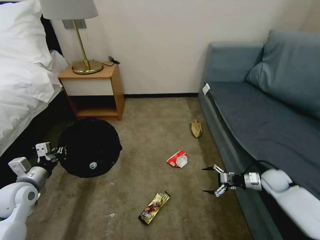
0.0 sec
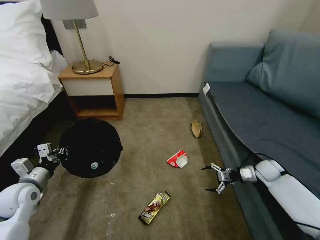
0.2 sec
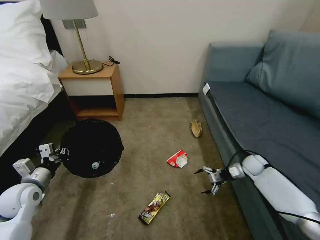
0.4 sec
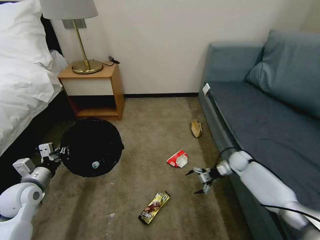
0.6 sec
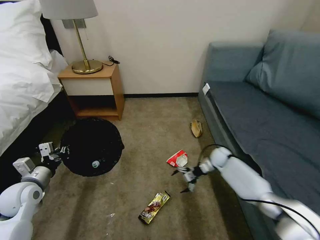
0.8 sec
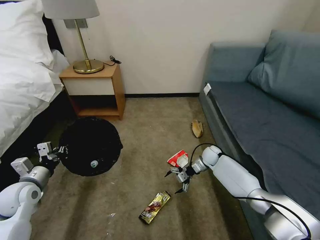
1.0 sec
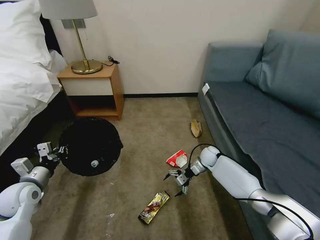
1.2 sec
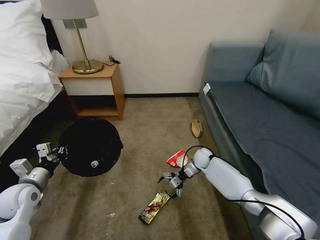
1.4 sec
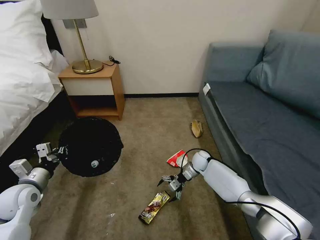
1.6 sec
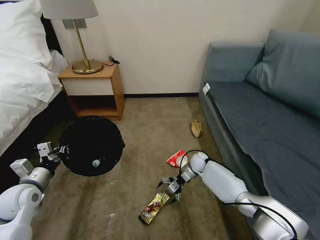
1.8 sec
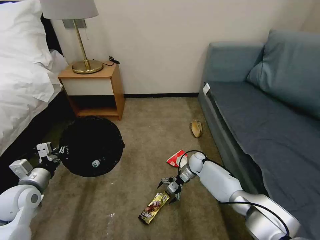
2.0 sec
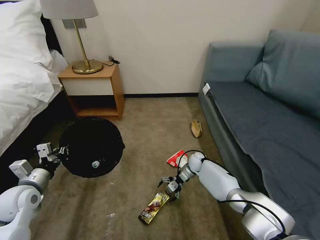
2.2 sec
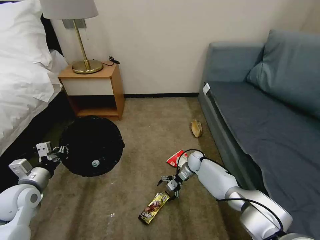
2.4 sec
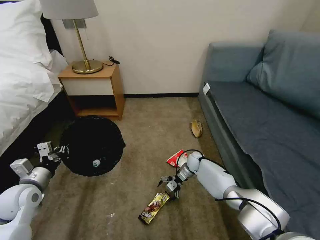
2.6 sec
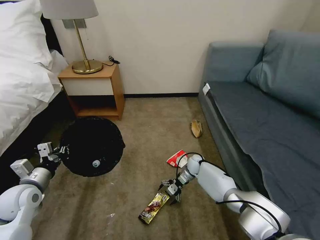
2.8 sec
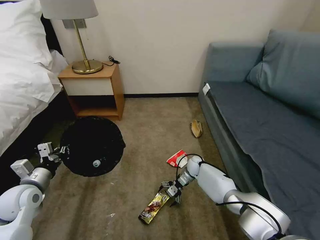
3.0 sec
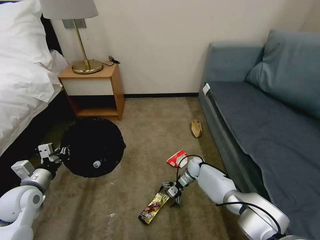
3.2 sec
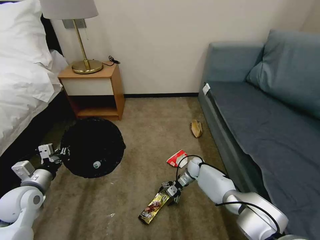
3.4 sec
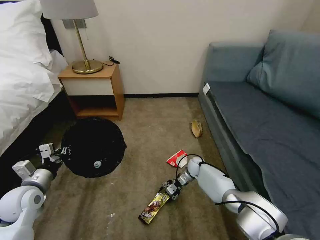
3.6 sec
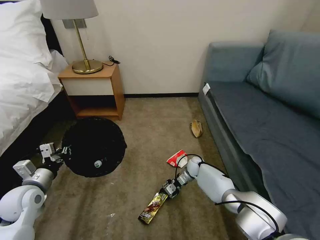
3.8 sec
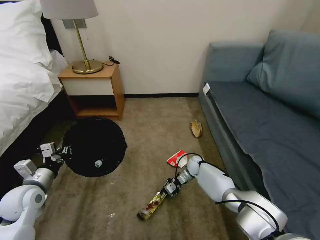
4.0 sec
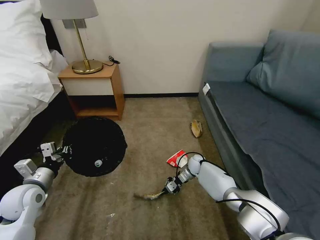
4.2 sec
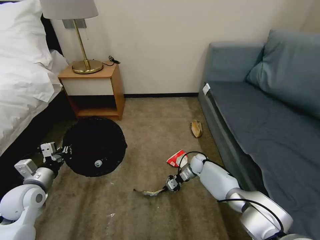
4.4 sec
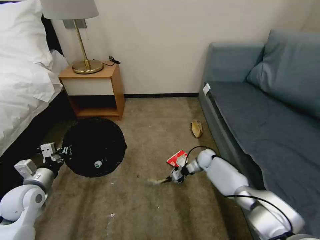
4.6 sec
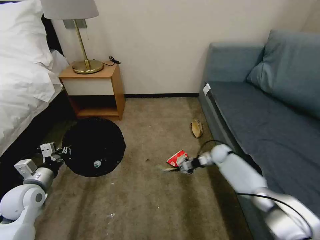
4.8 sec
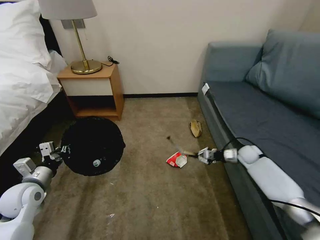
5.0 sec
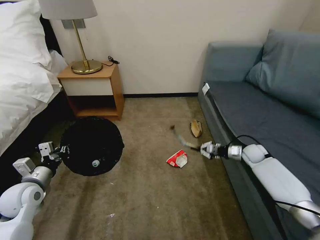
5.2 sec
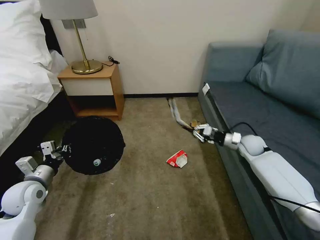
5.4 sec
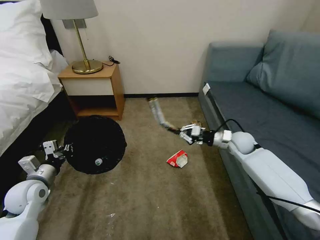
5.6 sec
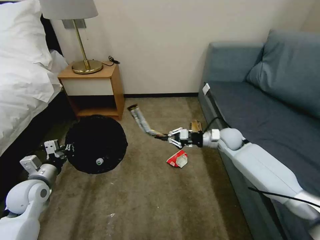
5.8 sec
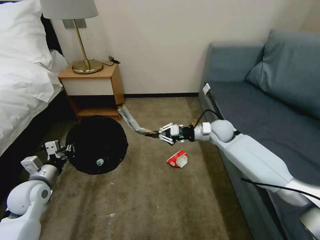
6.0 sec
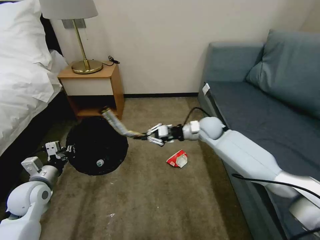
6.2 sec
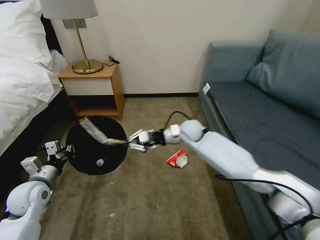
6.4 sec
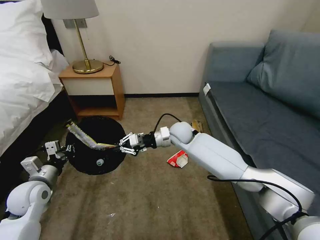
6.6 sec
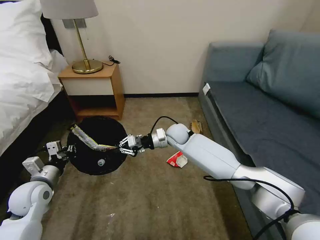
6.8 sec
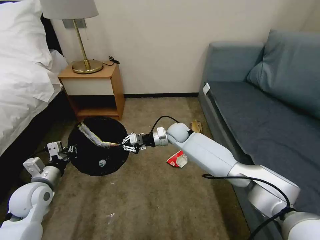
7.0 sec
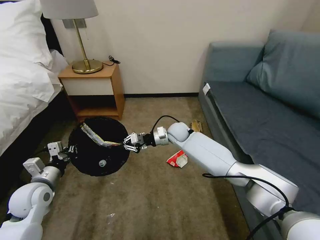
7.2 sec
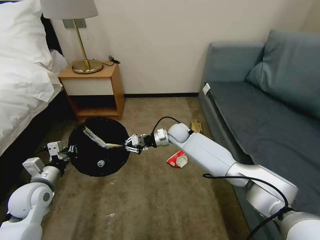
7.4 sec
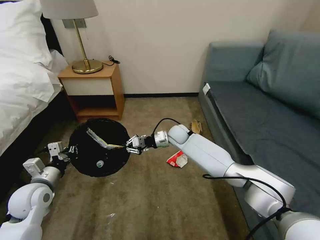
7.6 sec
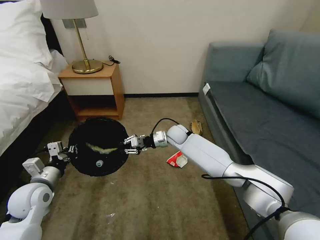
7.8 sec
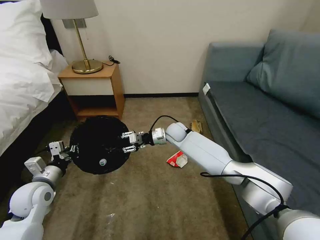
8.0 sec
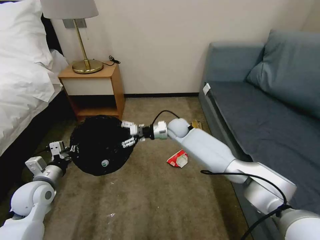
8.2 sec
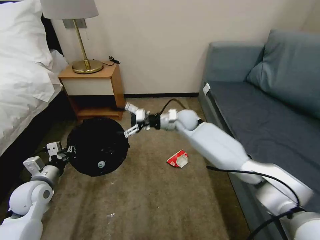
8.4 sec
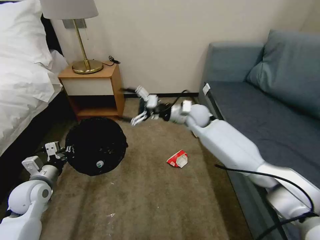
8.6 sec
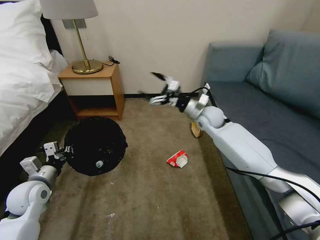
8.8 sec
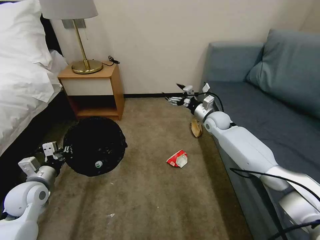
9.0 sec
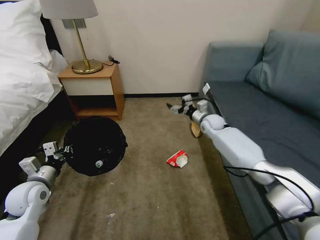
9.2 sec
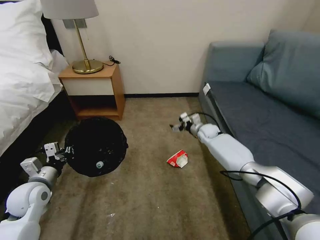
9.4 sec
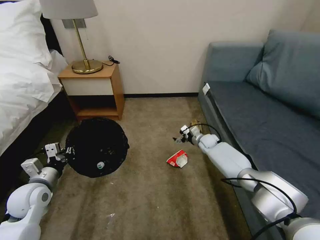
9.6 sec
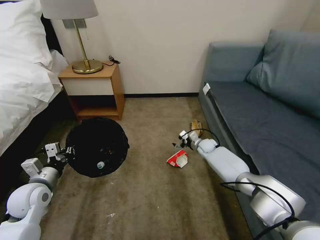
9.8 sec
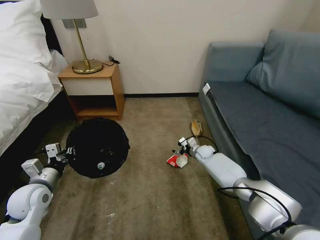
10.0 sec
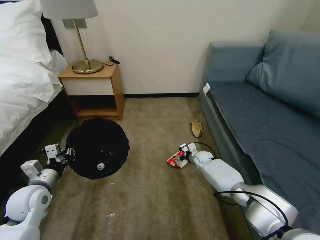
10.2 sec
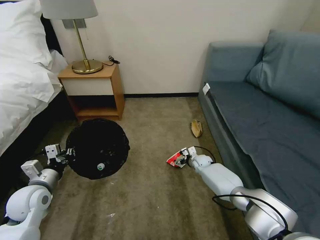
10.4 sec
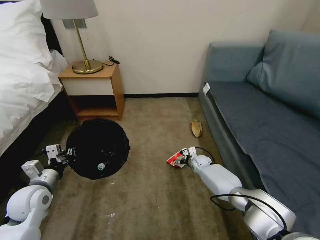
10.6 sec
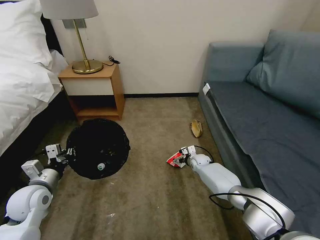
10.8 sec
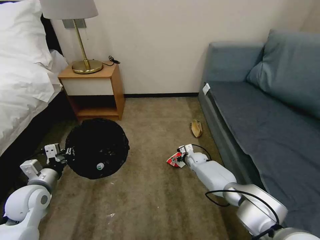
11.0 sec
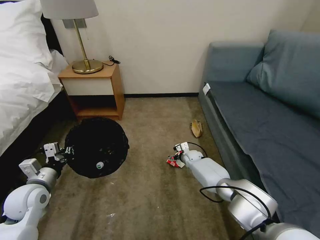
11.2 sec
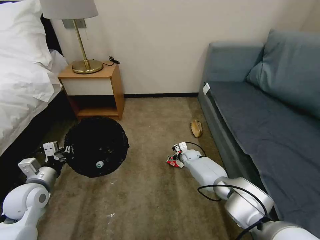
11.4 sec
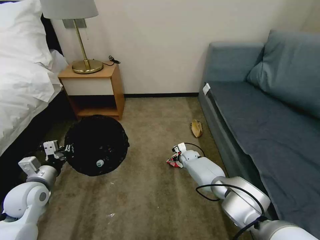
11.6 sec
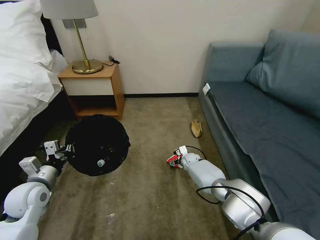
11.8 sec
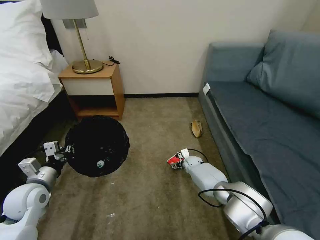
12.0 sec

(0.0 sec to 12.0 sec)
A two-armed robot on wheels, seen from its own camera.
Task of the whole recording: Pick up the trash bin, then pick up the garbage on the floor and place it into the trash bin.
0.0 sec - 1.6 sec: The right gripper moves to the left and forward, roughly 30 cm.
1.6 sec - 3.0 sec: The right gripper moves downward, some 5 cm.
3.0 sec - 4.4 sec: The right gripper closes its fingers.
4.4 sec - 6.0 sec: The right gripper is displaced upward by roughly 25 cm.
6.0 sec - 7.6 sec: The right gripper travels to the left and downward by approximately 15 cm.
7.6 sec - 9.0 sec: The right gripper travels to the right by roughly 15 cm, and opens.
9.0 sec - 10.4 sec: The right gripper goes some 25 cm downward.

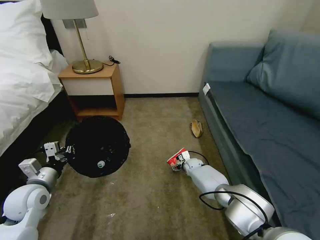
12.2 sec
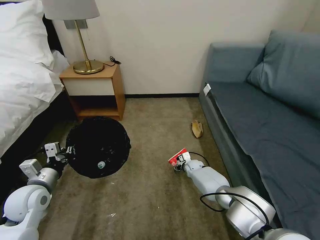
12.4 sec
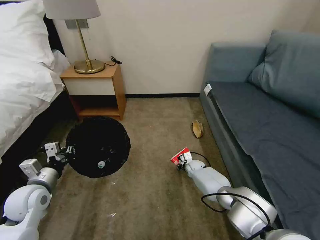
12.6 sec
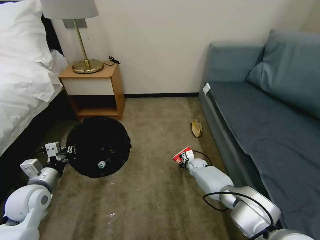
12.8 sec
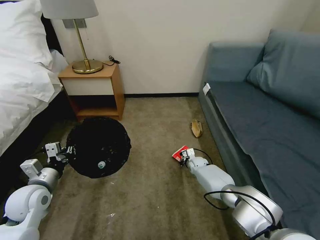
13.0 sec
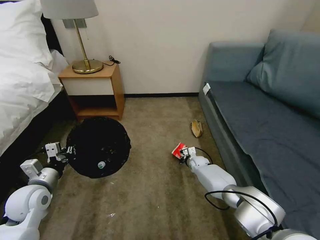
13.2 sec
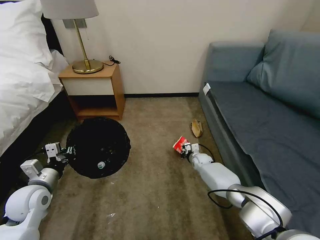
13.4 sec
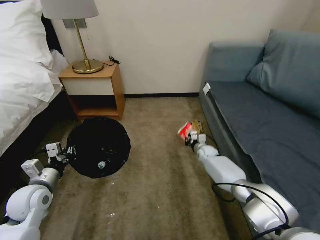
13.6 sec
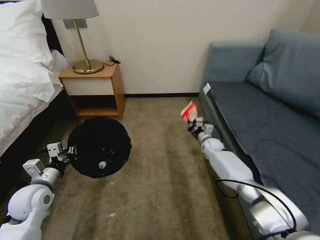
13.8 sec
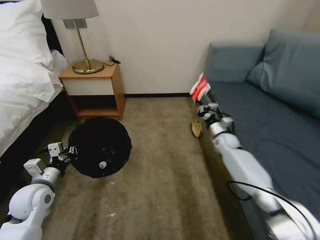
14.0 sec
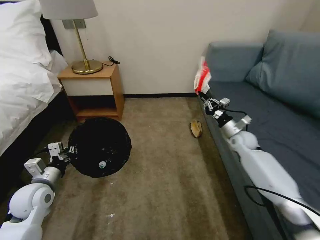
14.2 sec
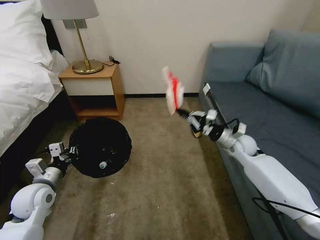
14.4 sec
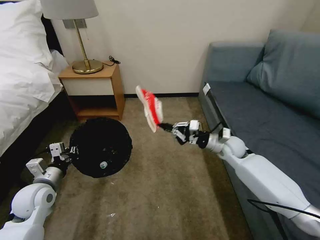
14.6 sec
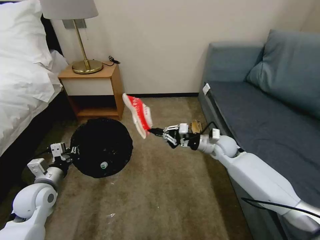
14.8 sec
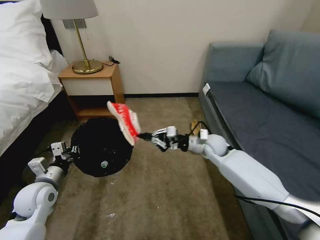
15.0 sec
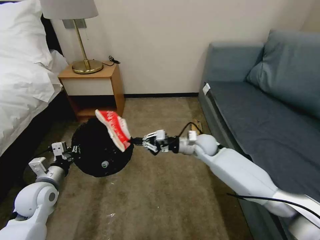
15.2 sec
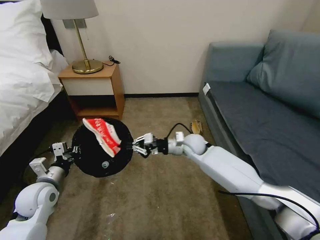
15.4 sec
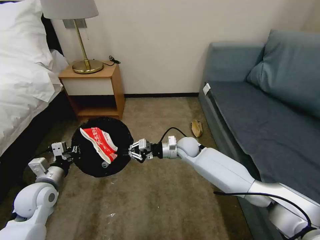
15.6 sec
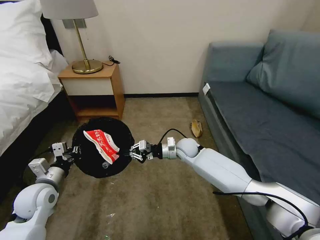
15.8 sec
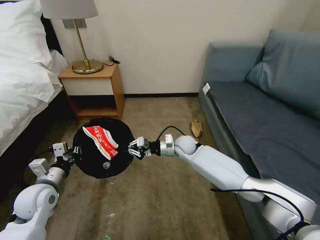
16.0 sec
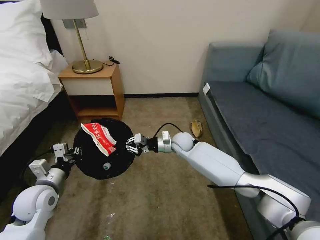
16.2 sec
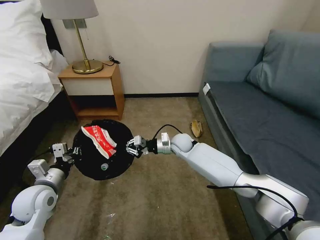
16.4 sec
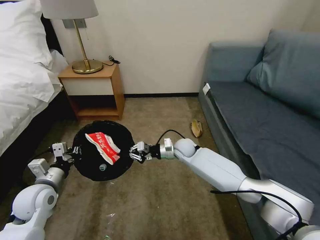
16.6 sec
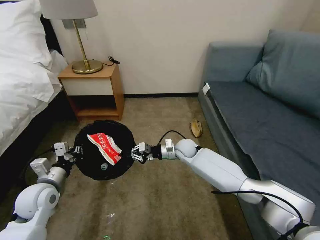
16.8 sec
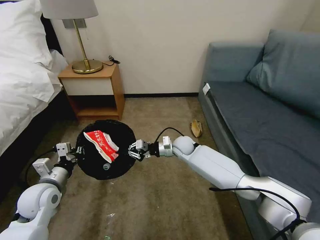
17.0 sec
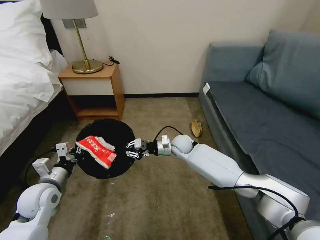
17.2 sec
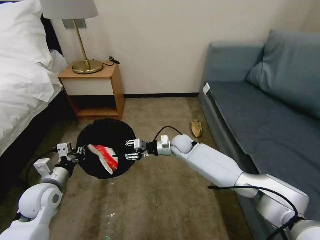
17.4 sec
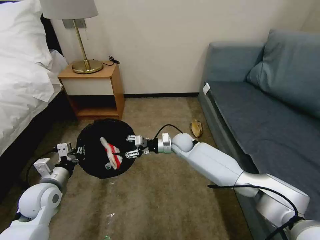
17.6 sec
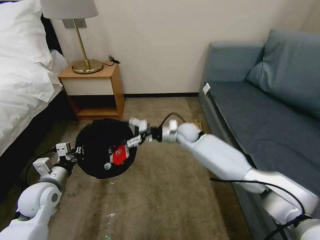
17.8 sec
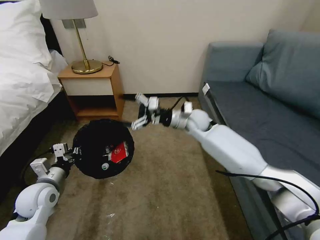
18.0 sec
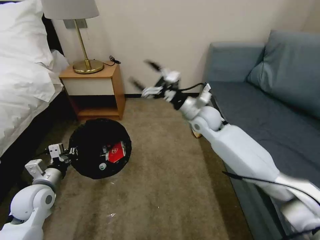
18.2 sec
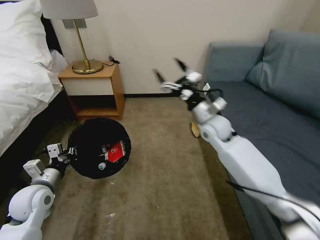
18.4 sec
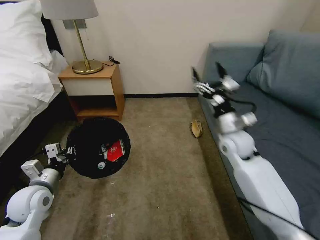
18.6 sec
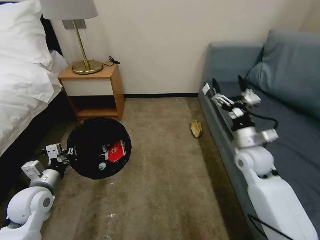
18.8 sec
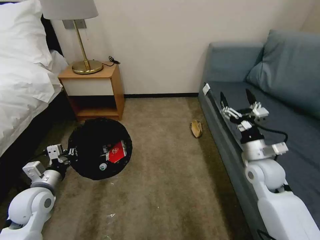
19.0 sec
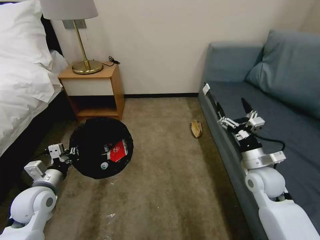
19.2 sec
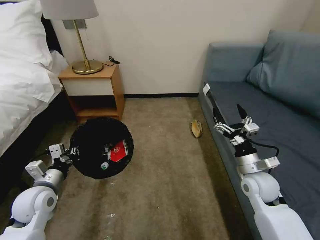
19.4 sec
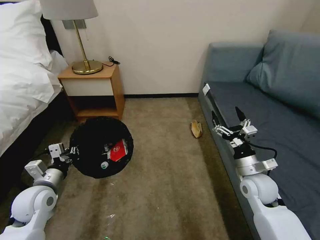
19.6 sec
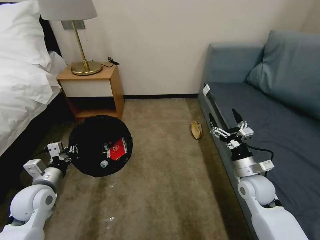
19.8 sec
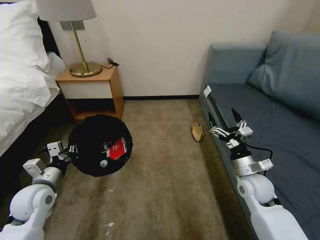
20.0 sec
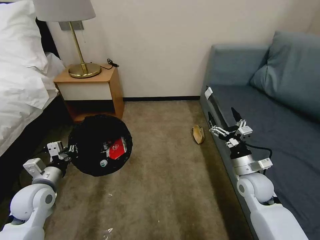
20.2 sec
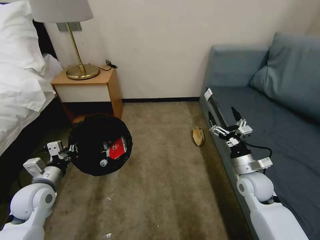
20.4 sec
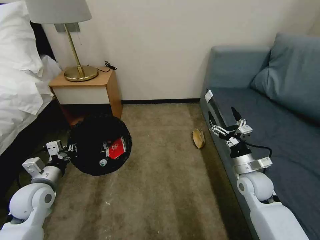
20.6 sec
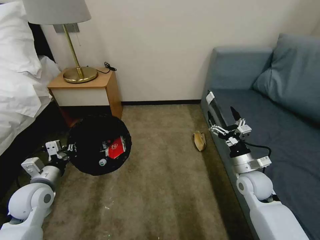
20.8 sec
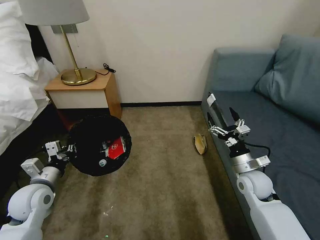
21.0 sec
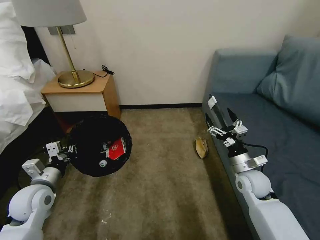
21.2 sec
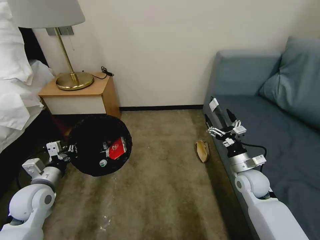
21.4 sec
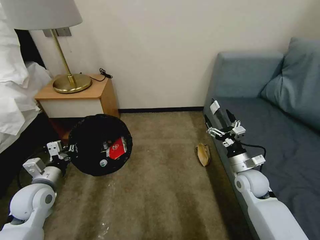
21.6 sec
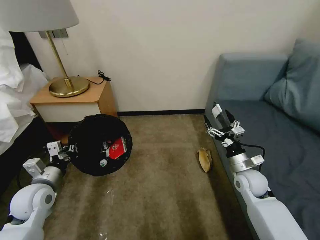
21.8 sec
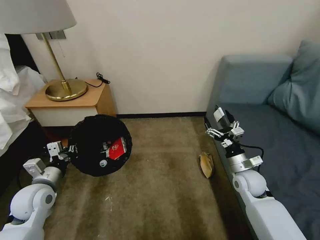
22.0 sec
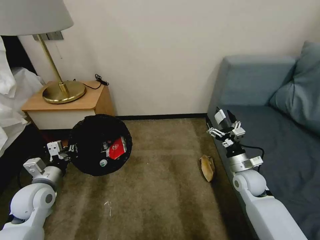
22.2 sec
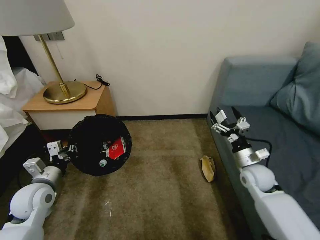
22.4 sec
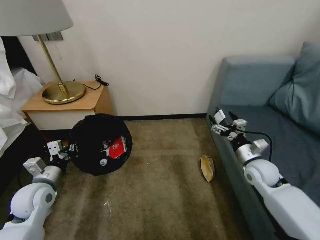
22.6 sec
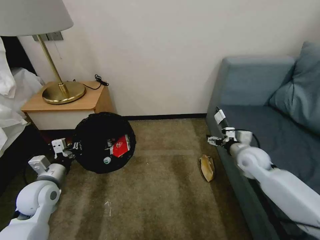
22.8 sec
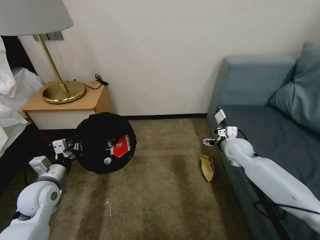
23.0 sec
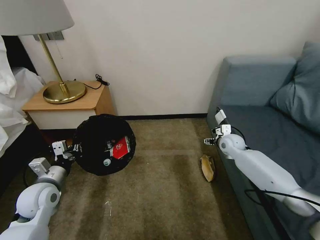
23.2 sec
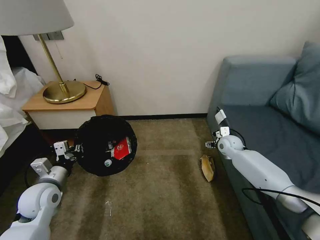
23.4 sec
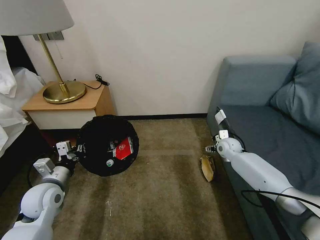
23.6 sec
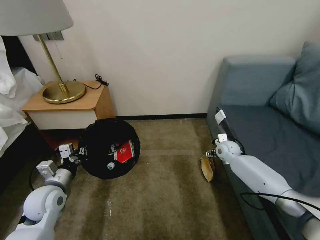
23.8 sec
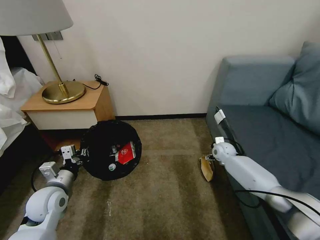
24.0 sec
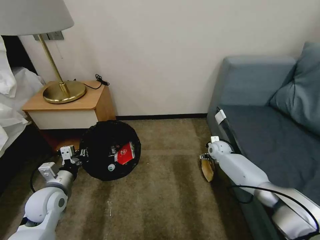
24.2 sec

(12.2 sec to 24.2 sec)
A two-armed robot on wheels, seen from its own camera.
Task of the whole recording: Pick up the trash bin, then pick up the garbage on the floor and place it into the trash bin.
12.2 sec - 13.8 sec: The right gripper travels upward and to the right by roughly 15 cm, and closes its fingers.
13.8 sec - 15.2 sec: The right gripper heads upward, to the left and backward, covering approximately 20 cm.
15.2 sec - 16.6 sec: The right gripper shifts about 10 cm to the left and downward.
16.6 sec - 18.2 sec: The right gripper goes roughly 20 cm upward, and opens its fingers.
18.2 sec - 19.8 sec: The right gripper travels backward, to the right and downward by some 30 cm.
22.6 sec - 24.2 sec: The right gripper goes roughly 20 cm forward and downward.
